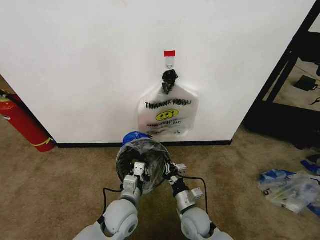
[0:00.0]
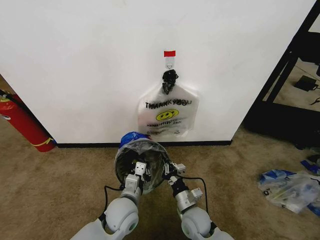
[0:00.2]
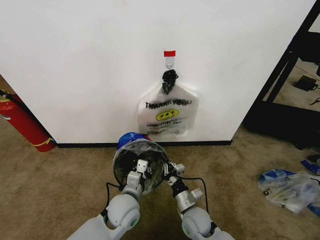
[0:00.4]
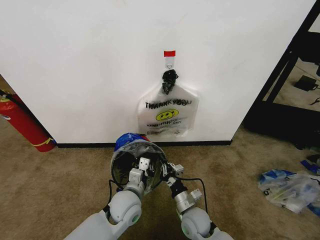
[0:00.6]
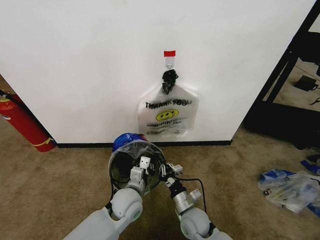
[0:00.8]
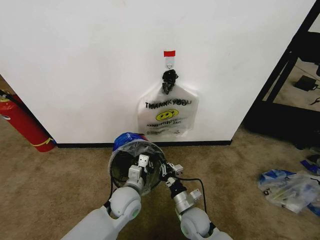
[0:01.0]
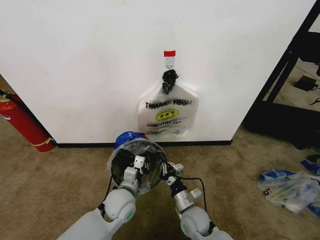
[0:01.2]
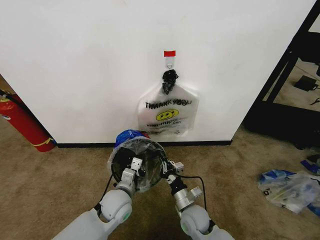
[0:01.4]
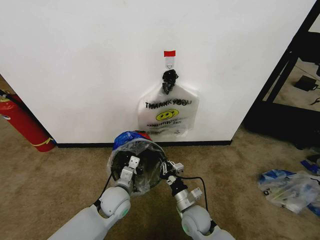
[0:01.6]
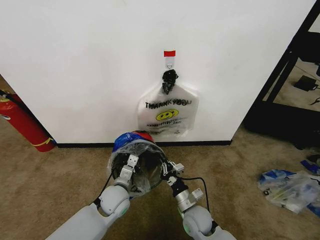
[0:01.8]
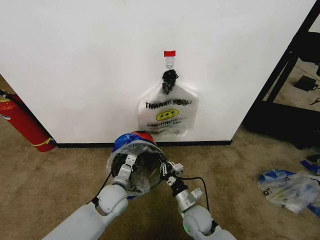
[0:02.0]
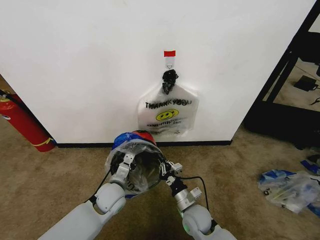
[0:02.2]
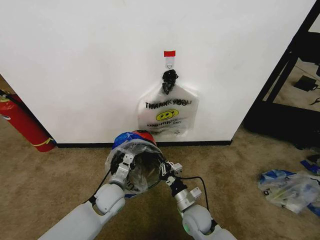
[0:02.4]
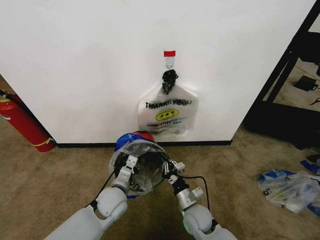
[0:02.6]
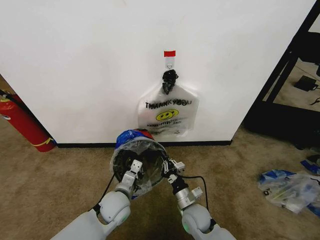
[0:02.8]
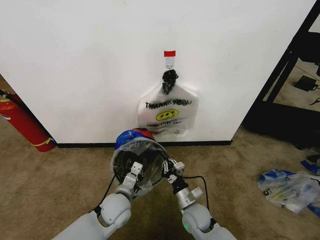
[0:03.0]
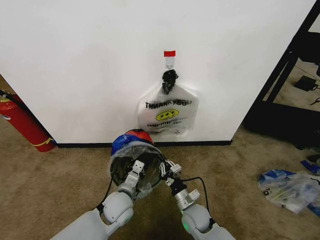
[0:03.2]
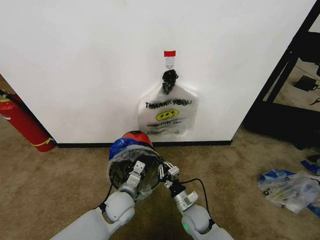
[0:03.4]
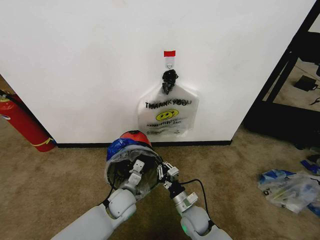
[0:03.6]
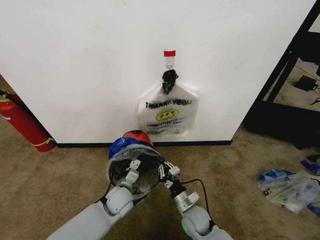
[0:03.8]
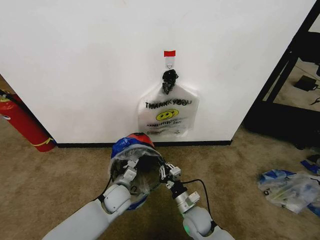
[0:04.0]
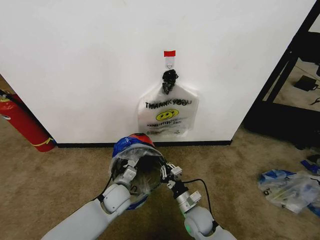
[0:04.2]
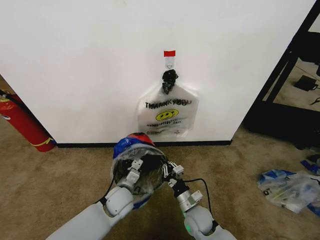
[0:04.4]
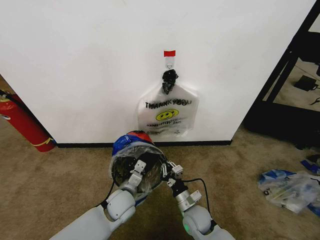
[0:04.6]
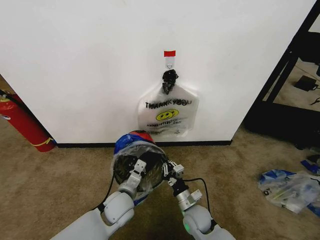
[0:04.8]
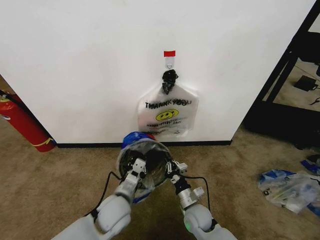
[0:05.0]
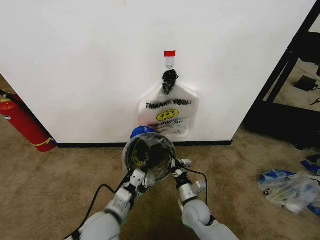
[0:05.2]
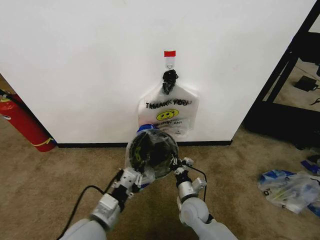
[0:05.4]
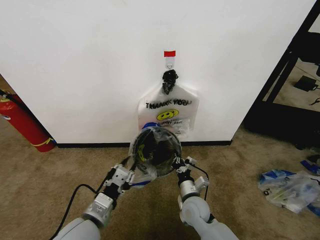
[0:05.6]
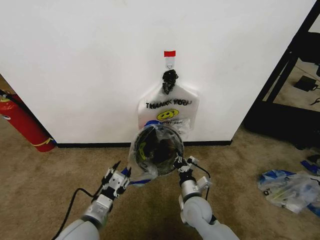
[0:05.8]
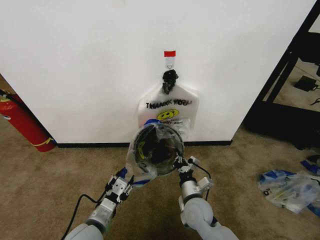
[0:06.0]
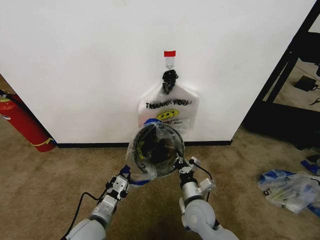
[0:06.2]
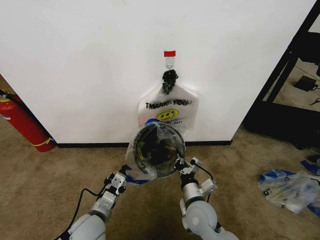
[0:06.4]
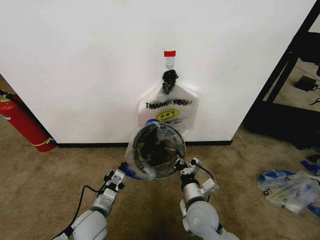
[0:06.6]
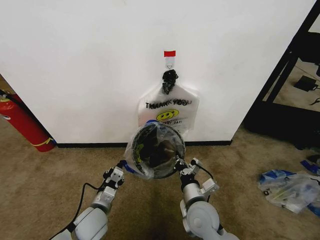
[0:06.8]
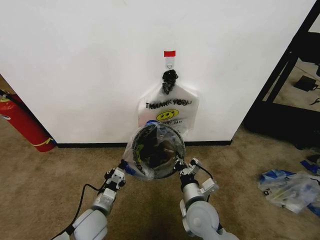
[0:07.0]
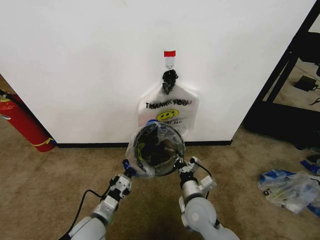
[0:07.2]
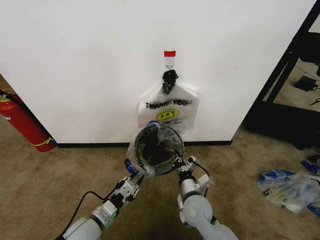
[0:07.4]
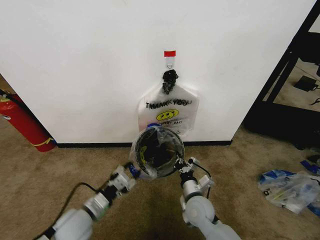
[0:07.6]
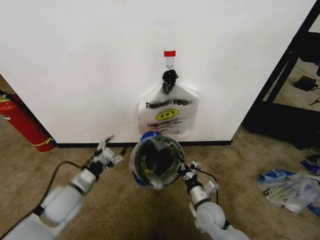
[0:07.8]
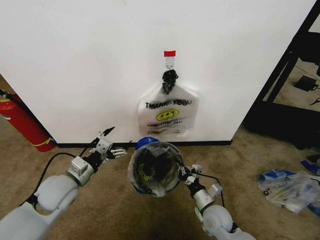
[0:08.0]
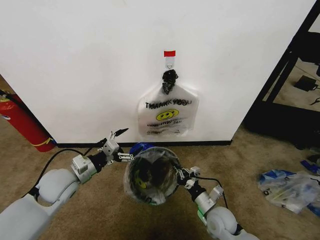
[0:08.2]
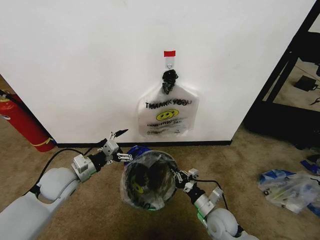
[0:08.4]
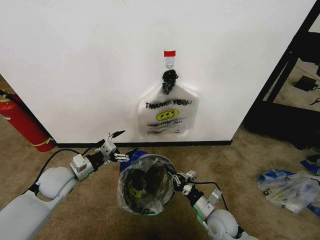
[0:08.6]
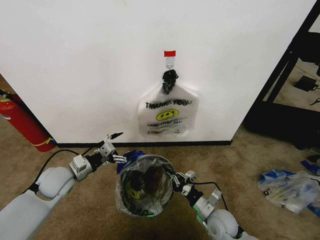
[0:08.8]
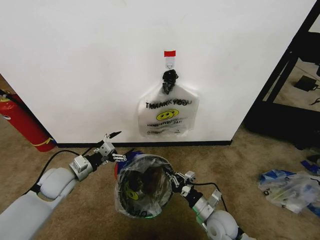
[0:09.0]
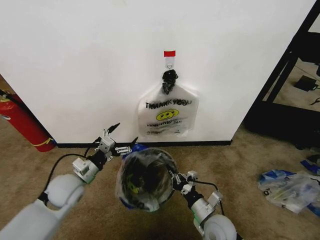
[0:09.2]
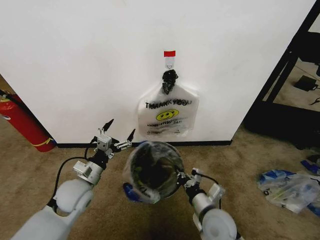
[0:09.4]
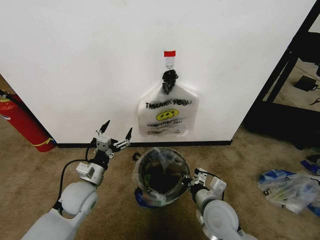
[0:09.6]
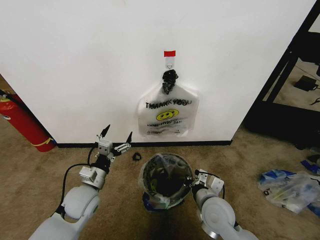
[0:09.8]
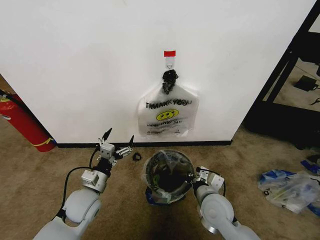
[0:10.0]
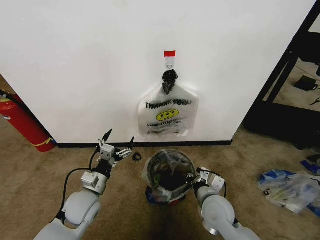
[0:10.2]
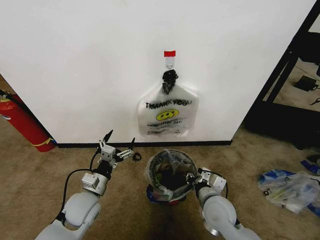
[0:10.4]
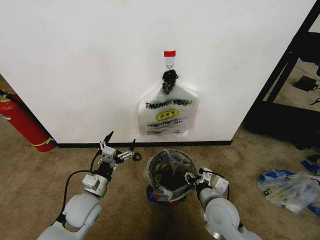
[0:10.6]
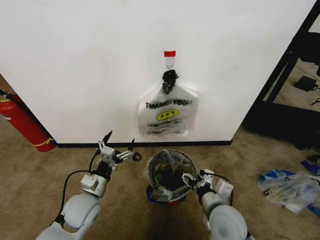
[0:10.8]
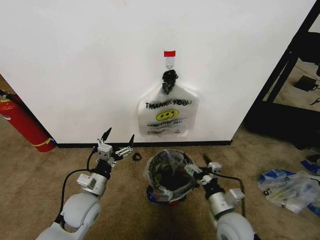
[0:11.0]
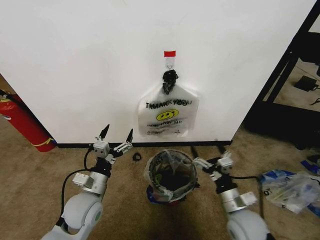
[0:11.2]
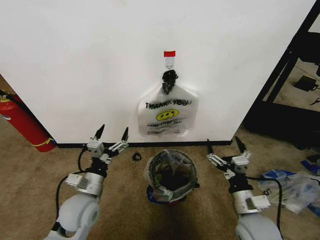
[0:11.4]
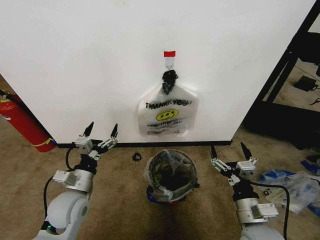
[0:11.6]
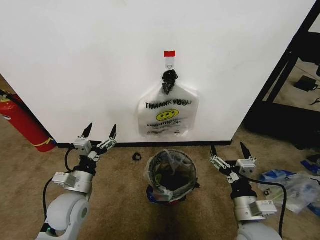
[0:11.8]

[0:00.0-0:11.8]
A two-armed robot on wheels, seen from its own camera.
Task of the whole recording: Pick up the garbage bag from the wall and place it over the trash bin.
0:00.0 to 0:01.4: The grippers make only small movements.
0:01.4 to 0:03.0: The grippers make only small movements.
0:03.0 to 0:04.4: There are only small adjustments of the grippers.
0:04.4 to 0:06.0: The left gripper heads backward and upward, covering approximately 15 cm, and opens its fingers; the right gripper is displaced upward by roughly 5 cm.
0:07.4 to 0:08.8: The left gripper is displaced forward, to the left and upward by roughly 20 cm, and opens up, while the right gripper goes roughly 10 cm to the right and downward.
0:08.8 to 0:10.4: The left gripper heads to the right and backward, covering roughly 10 cm. Meanwhile the right gripper goes roughly 10 cm upward.
0:10.4 to 0:11.8: The right gripper shifts some 10 cm backward, to the right and upward, and opens its fingers; the left gripper changes place by about 5 cm.

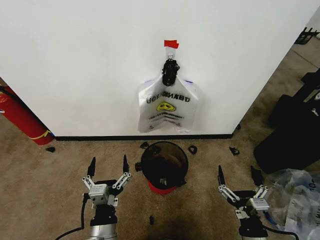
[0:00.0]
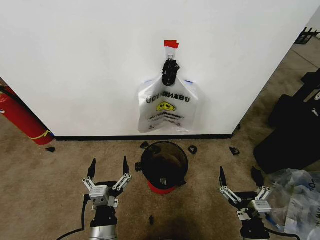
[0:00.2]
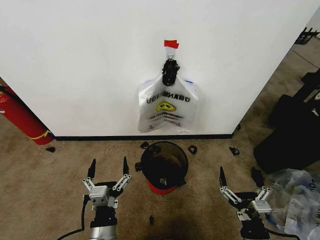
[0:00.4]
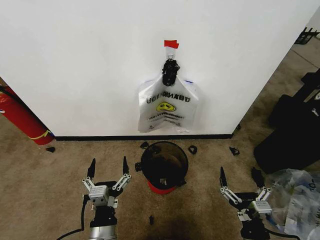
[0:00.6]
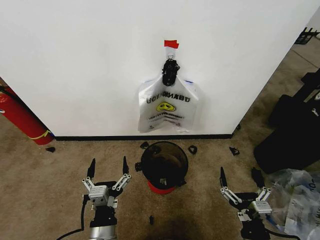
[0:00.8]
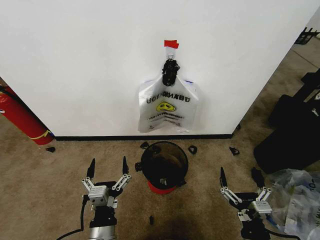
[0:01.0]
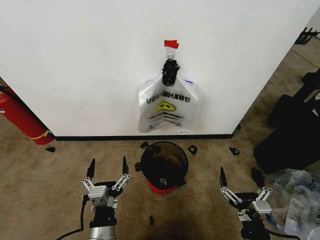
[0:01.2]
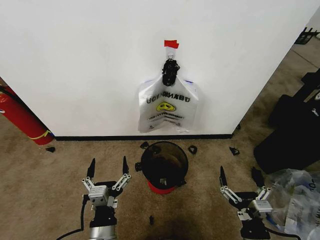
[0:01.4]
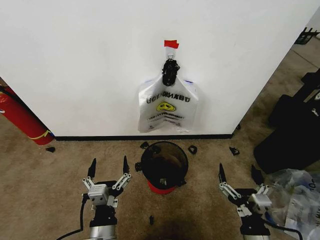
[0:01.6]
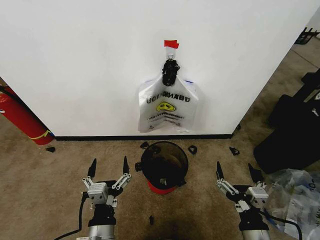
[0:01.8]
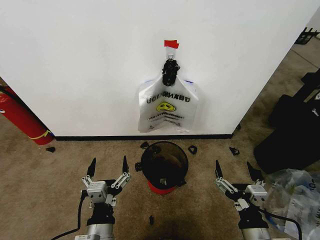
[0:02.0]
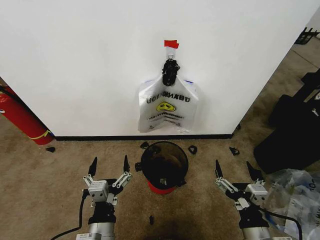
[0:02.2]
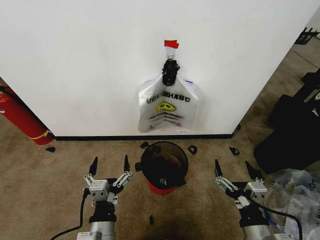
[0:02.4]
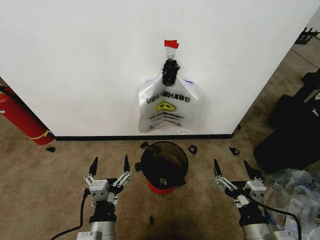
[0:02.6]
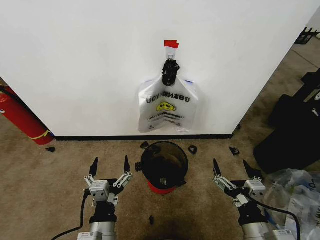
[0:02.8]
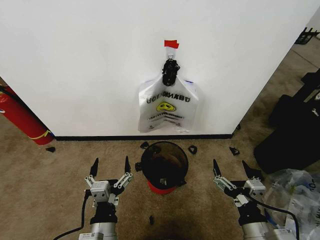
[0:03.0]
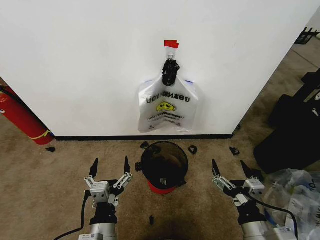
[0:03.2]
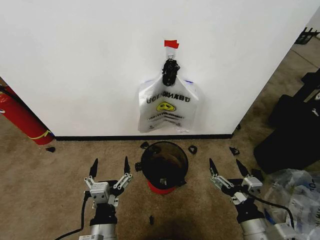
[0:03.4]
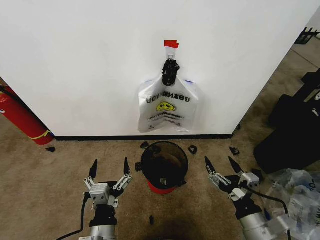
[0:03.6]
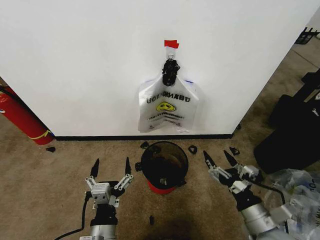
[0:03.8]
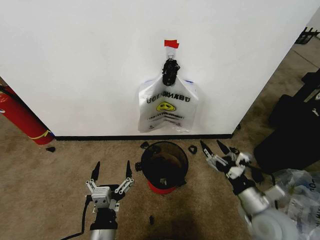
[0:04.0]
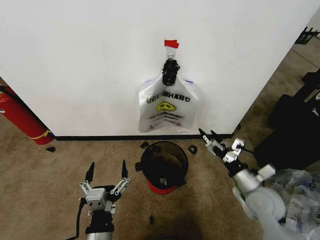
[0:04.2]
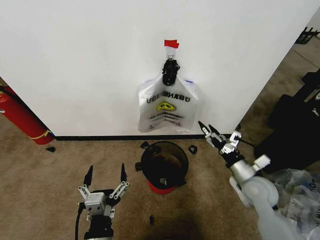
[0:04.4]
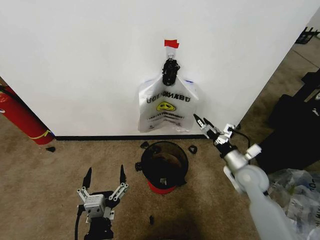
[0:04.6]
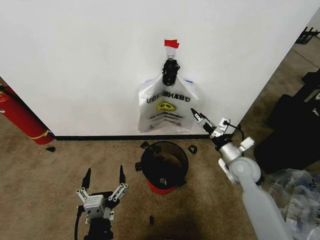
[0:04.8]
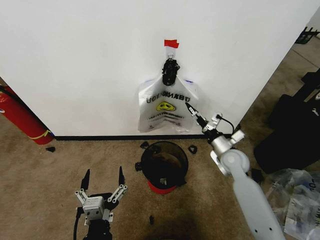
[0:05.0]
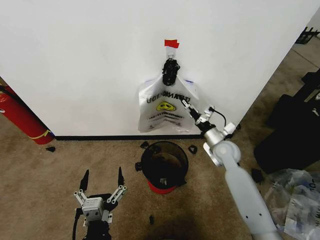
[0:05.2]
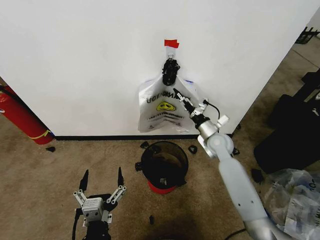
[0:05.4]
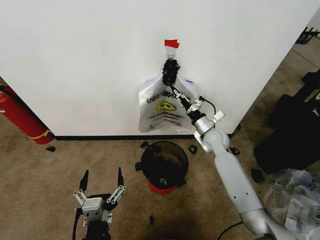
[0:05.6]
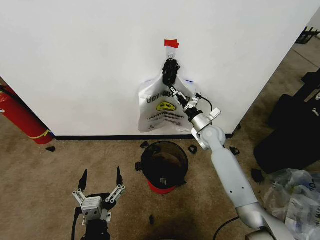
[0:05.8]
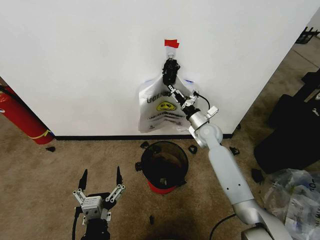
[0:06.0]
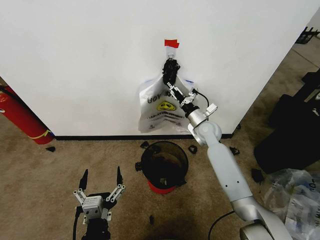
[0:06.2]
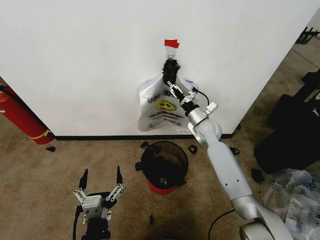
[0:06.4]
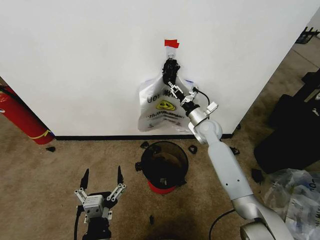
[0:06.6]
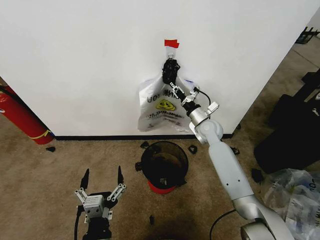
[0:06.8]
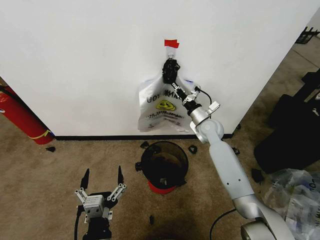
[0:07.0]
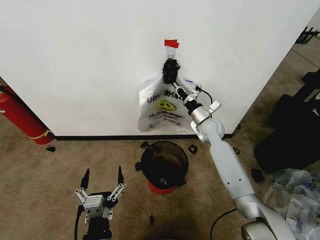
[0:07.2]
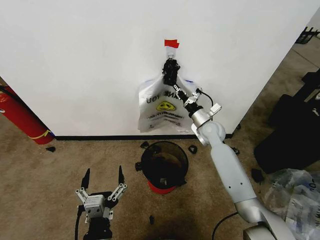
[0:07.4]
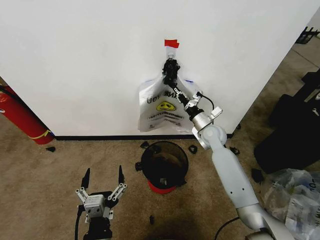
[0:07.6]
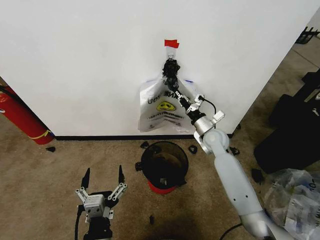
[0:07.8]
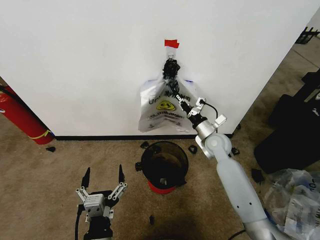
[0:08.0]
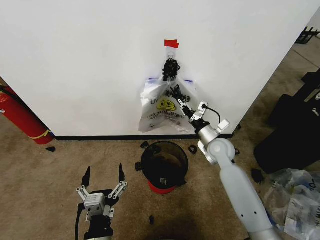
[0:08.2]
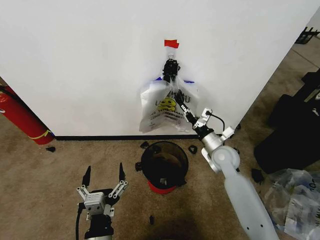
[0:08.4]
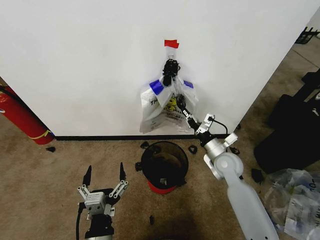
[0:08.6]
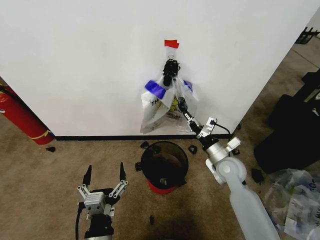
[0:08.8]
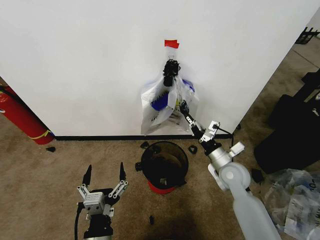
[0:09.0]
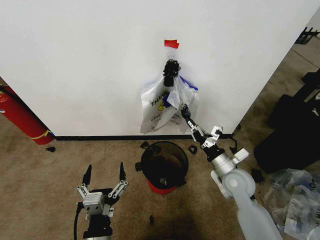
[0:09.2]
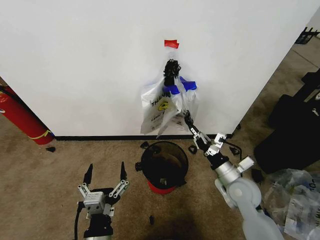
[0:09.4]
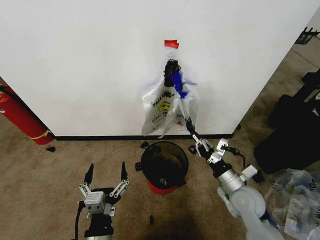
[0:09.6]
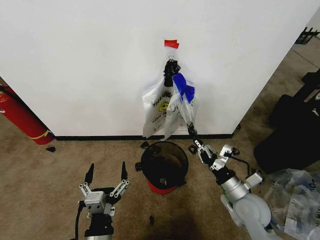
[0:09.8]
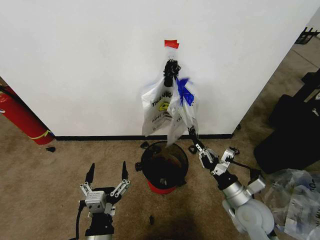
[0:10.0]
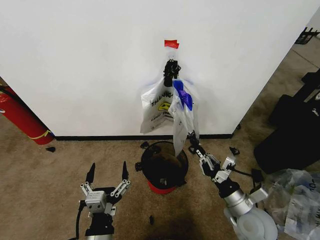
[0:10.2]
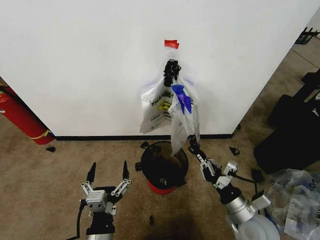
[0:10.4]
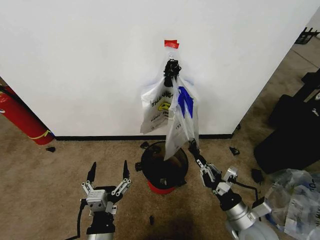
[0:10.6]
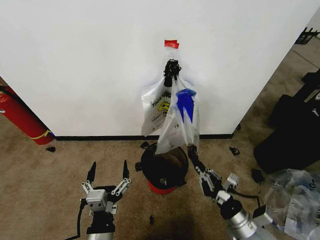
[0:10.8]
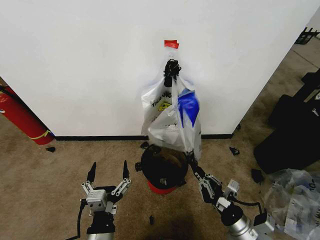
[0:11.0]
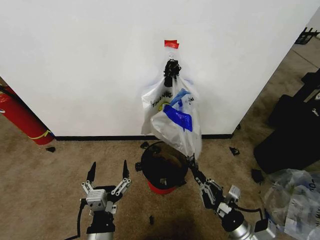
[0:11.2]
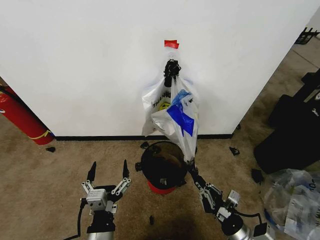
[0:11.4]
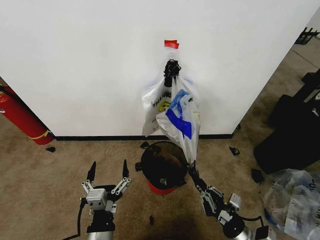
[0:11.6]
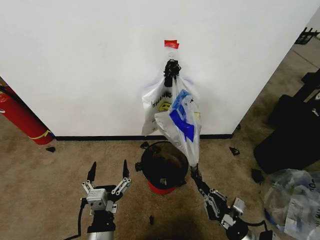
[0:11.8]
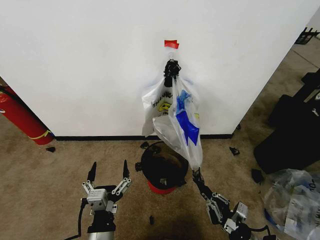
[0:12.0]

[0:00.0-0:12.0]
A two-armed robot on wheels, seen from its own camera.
Task of the whole recording: Pick up the garbage bag from the wall and place it over the trash bin.
0:01.6 to 0:03.0: The grippers stay close to where they were, moving slightly.
0:03.0 to 0:04.4: The right gripper shifts about 20 cm forward.
0:04.4 to 0:06.0: The right gripper moves forward and to the left, about 25 cm.
0:06.0 to 0:07.6: The right gripper closes.
0:07.6 to 0:09.0: The right gripper goes roughly 15 cm backward.
0:09.0 to 0:10.4: The right gripper moves backward, approximately 15 cm.
0:10.4 to 0:12.0: The right gripper goes about 10 cm downward and backward.
